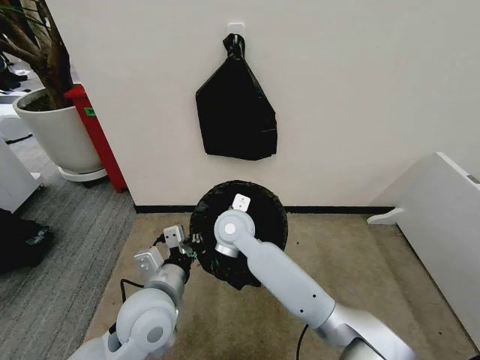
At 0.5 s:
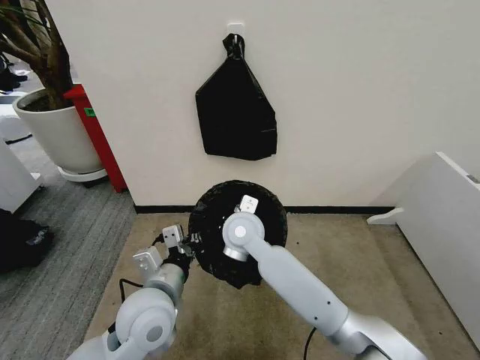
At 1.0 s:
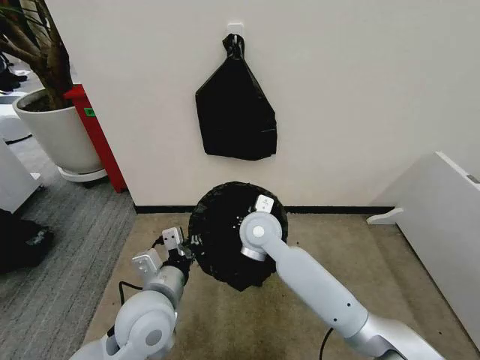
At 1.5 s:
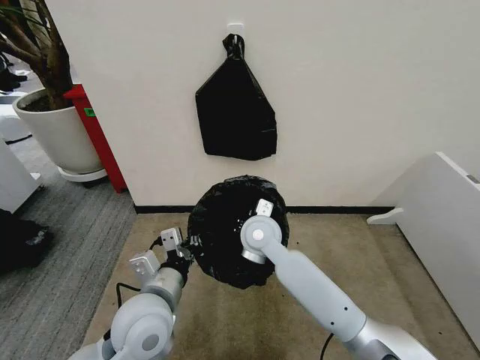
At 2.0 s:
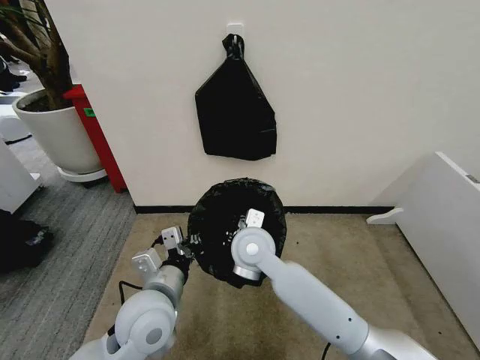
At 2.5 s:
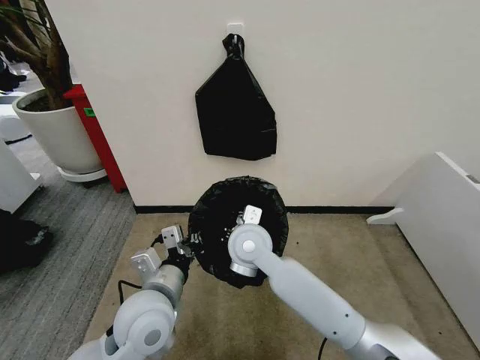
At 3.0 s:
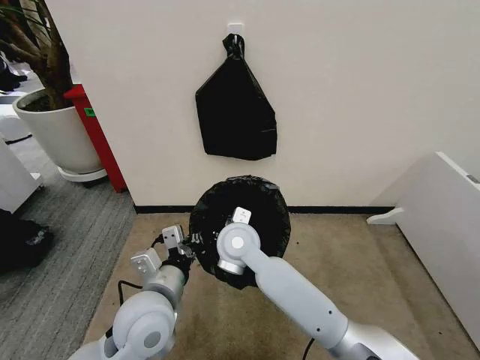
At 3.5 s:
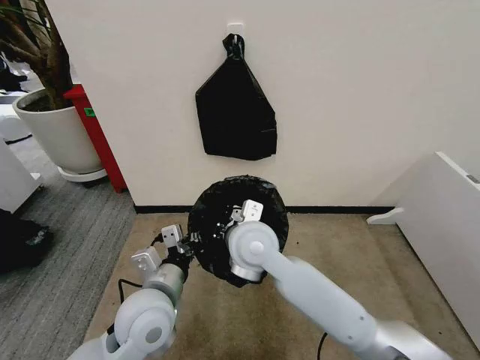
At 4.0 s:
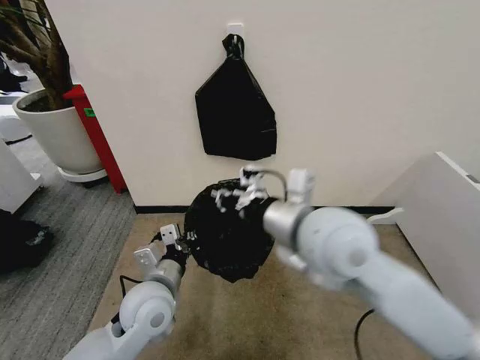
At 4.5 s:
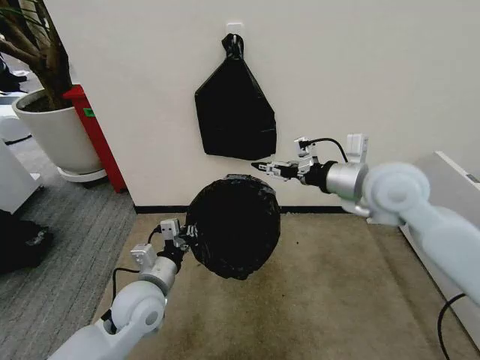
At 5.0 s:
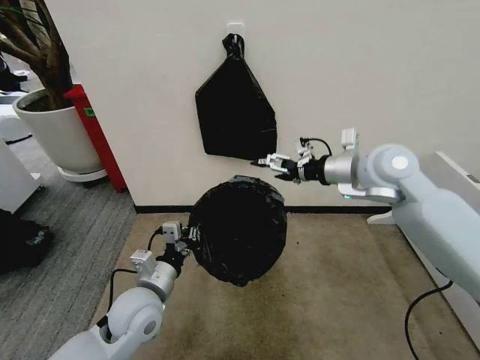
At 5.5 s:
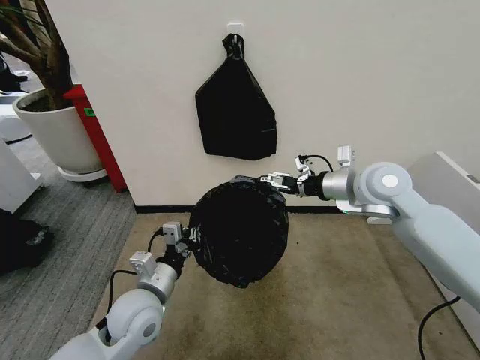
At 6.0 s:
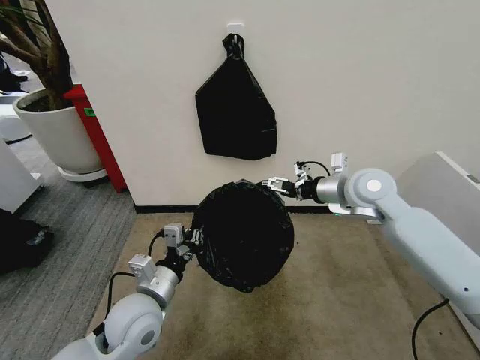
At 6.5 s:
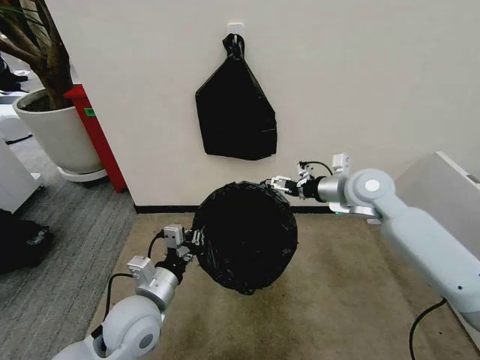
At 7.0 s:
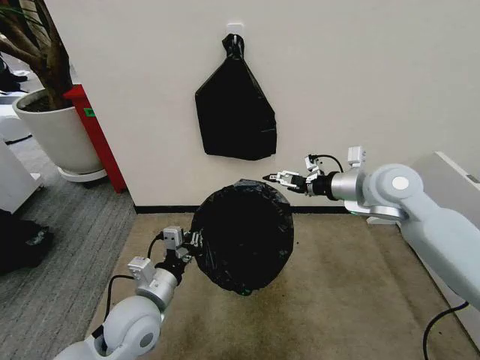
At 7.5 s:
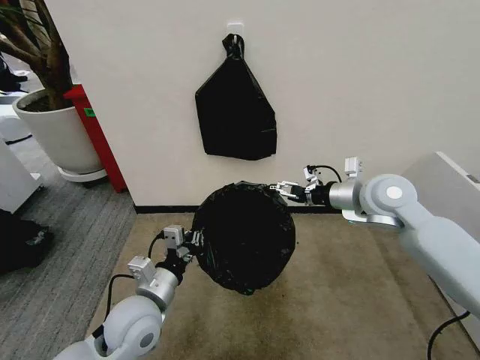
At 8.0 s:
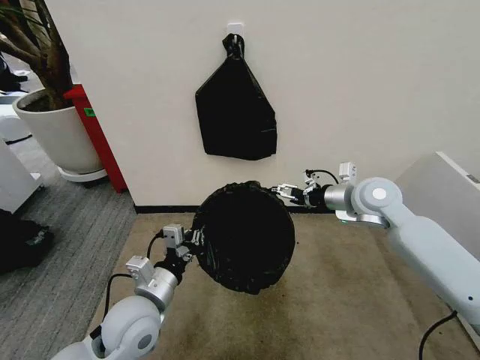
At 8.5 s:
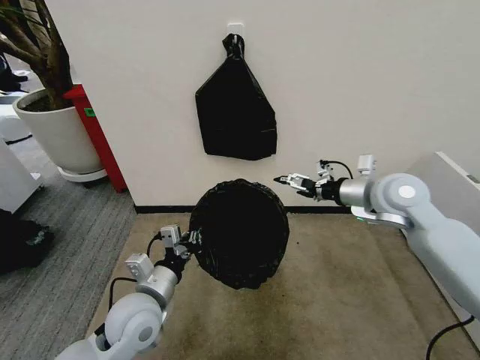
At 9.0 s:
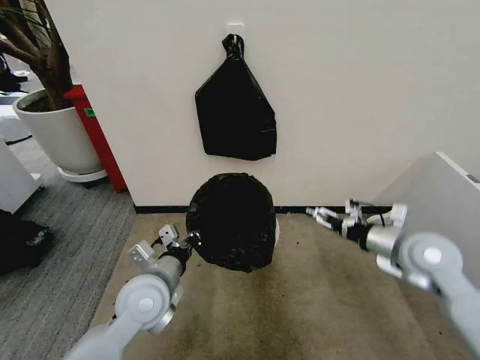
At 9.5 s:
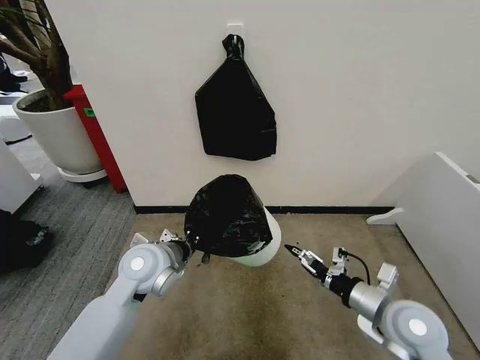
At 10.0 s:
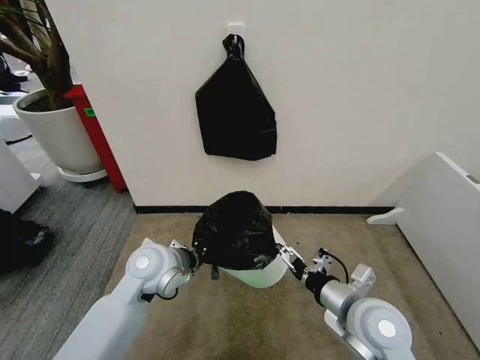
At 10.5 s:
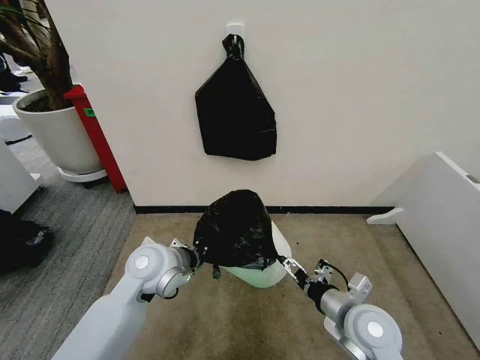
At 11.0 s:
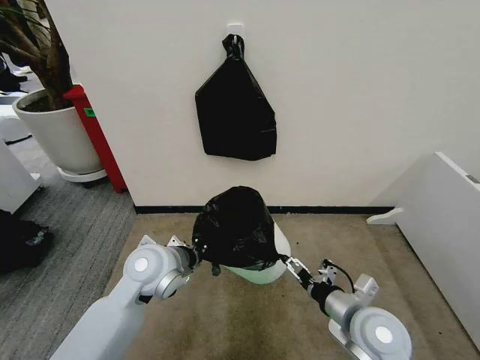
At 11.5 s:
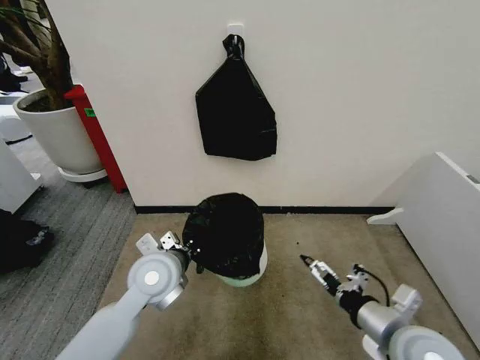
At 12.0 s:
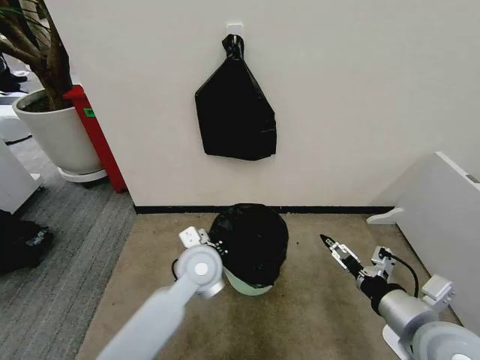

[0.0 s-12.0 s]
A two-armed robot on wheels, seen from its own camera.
Task of the whole recording: Place the garbage bag over the trash bin.
0.0 to 2.0 s: The right gripper is displaced backward by approximately 5 cm.
2.0 to 4.0 s: The right gripper moves upward, to the right and backward, about 20 cm.
4.0 to 6.0 s: The right gripper travels forward and to the right by about 20 cm, and opens up.
6.0 to 8.0 s: The grippers move only a little.
8.0 to 10.0 s: The right gripper heads backward and downward, covering some 25 cm; the left gripper travels forward by approximately 10 cm.
10.0 to 12.0 s: The left gripper is displaced to the right by some 10 cm. The right gripper moves to the right and backward, approximately 10 cm.

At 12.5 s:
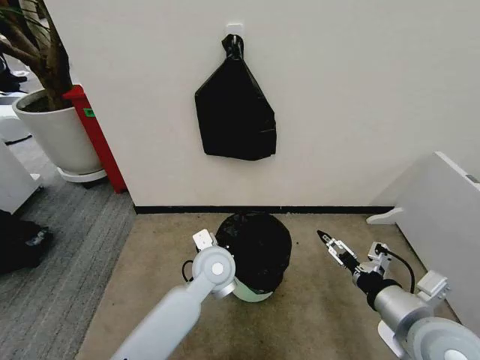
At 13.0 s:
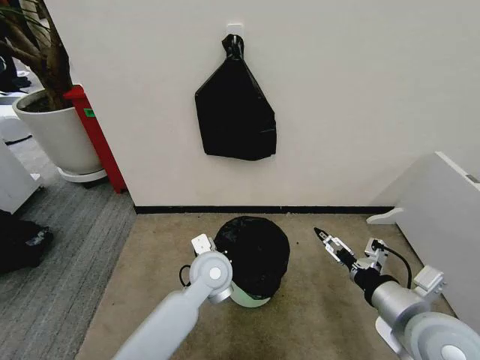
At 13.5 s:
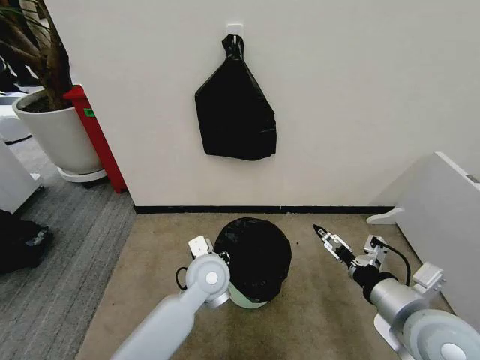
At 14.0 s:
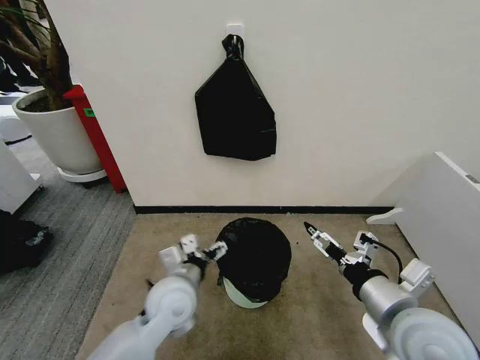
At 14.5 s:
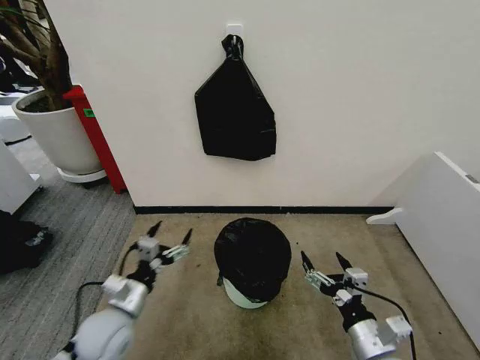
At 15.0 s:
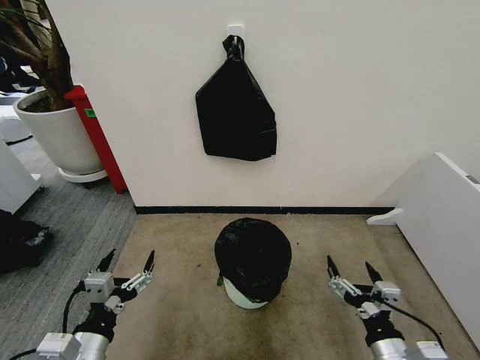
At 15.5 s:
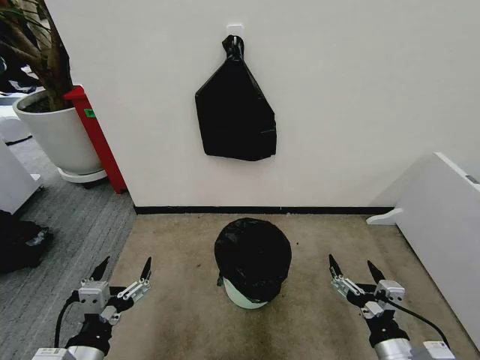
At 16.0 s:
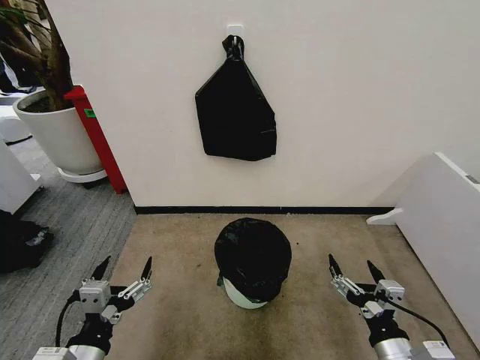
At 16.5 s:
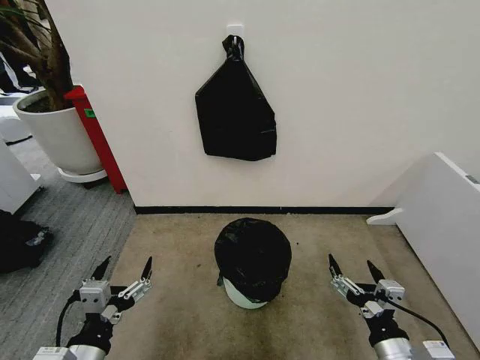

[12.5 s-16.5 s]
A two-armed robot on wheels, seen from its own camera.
Task of the whole recording: Place the garbage bag over the trash bin.
12.5 to 14.5 s: The left gripper moves to the left and backward, about 25 cm, and opens its fingers, while the right gripper is displaced downward by about 10 cm.
14.5 to 16.5 s: The left gripper travels backward and upward by approximately 15 cm.

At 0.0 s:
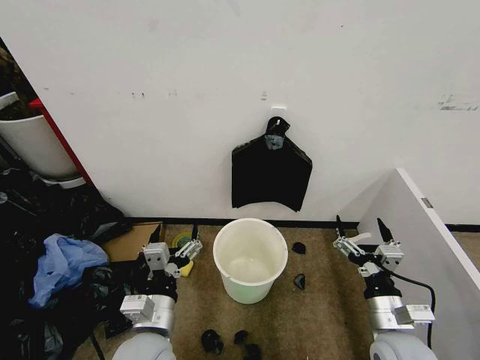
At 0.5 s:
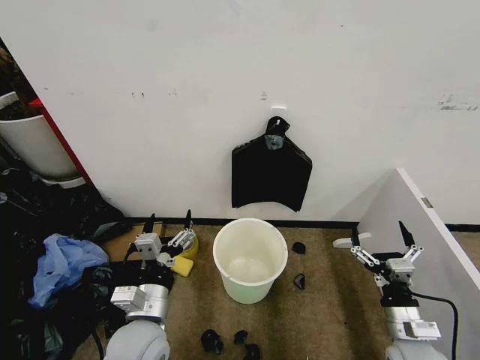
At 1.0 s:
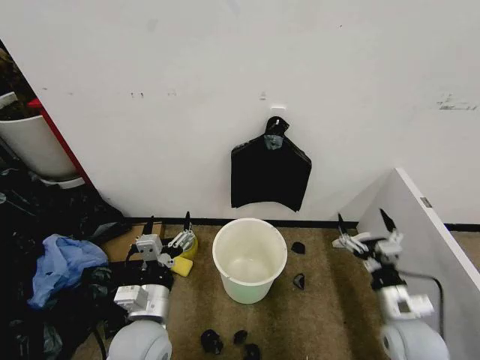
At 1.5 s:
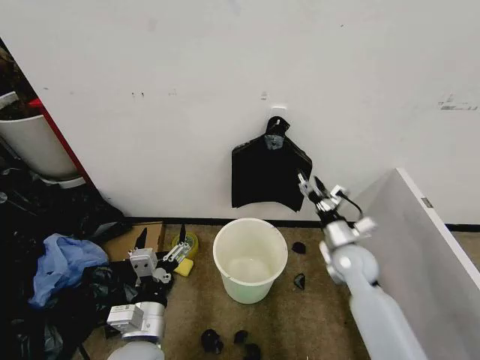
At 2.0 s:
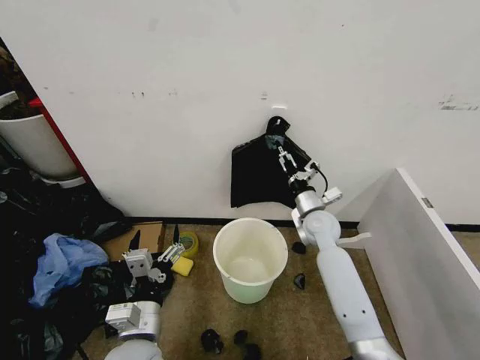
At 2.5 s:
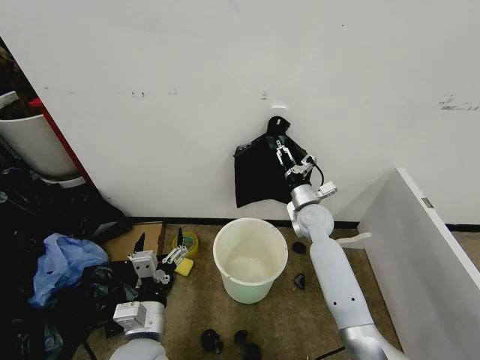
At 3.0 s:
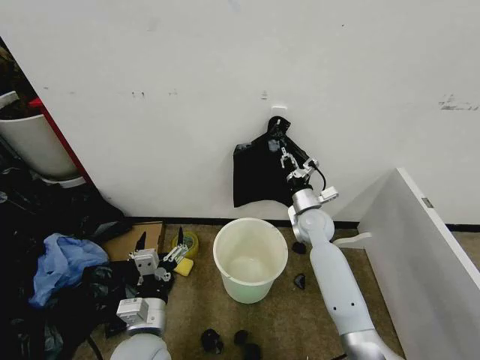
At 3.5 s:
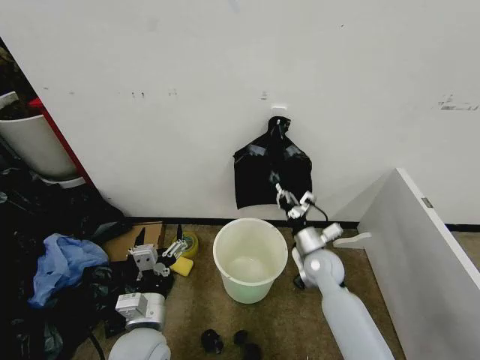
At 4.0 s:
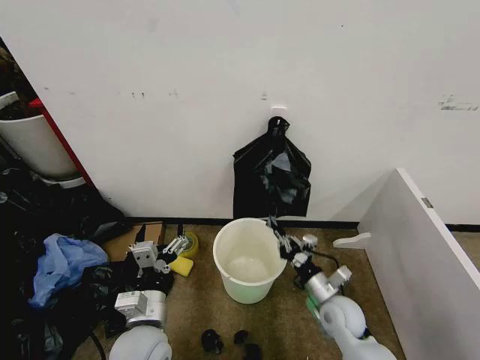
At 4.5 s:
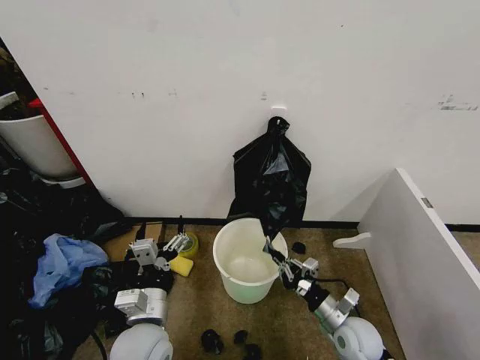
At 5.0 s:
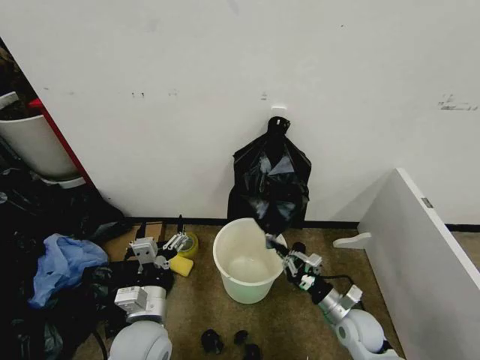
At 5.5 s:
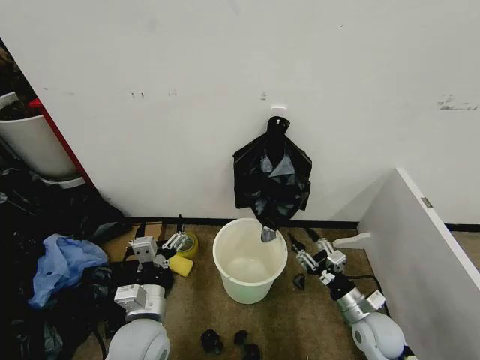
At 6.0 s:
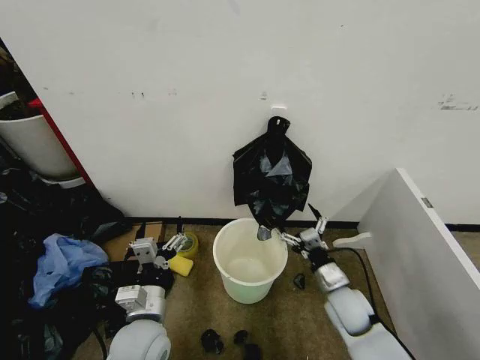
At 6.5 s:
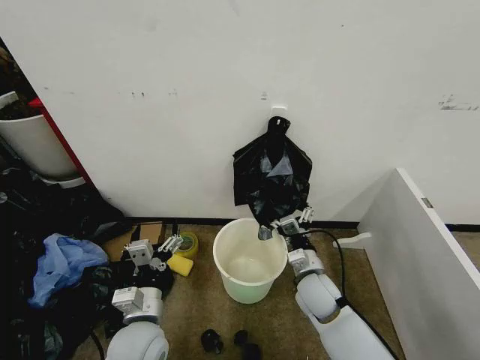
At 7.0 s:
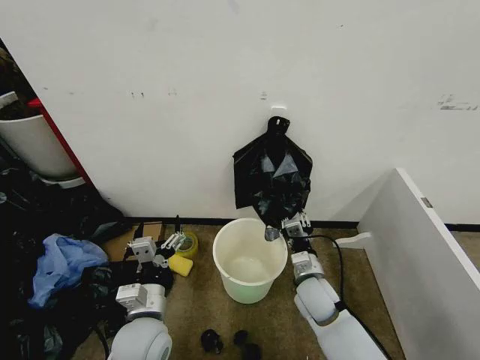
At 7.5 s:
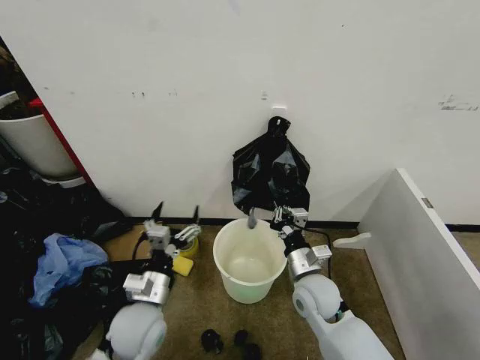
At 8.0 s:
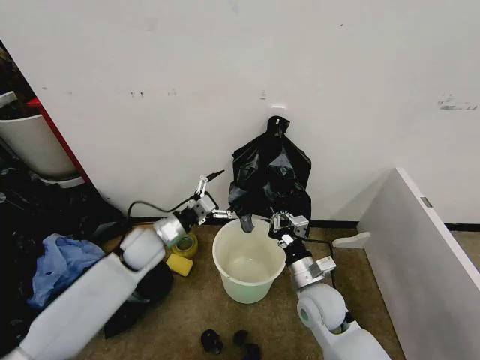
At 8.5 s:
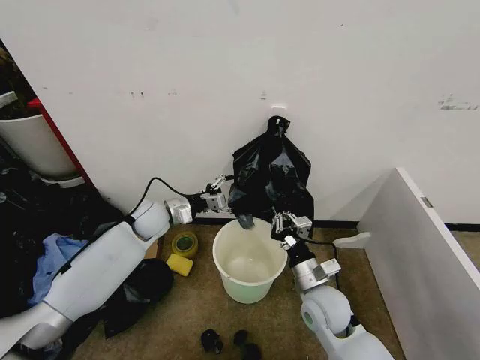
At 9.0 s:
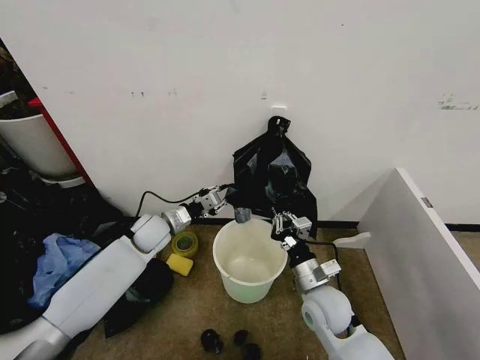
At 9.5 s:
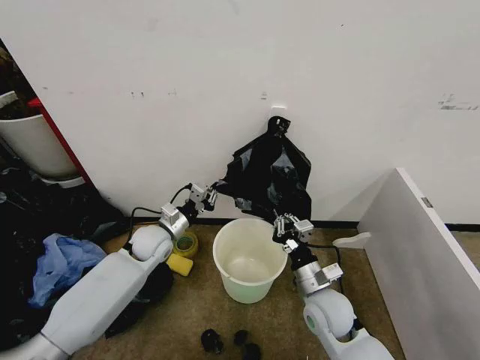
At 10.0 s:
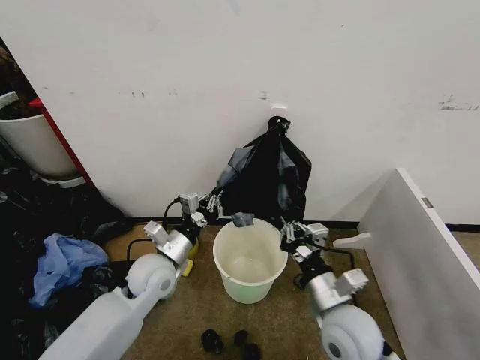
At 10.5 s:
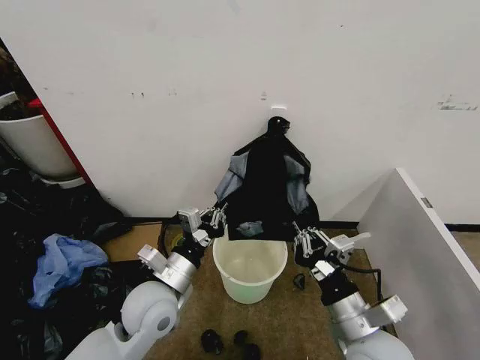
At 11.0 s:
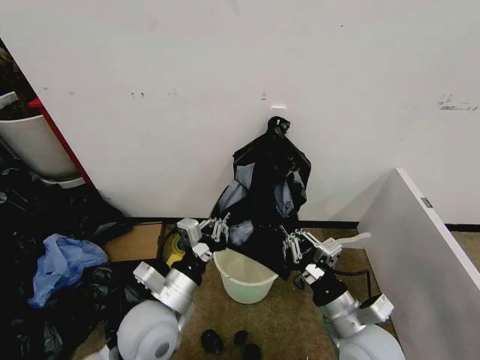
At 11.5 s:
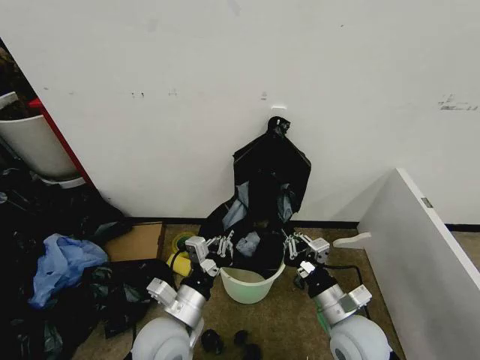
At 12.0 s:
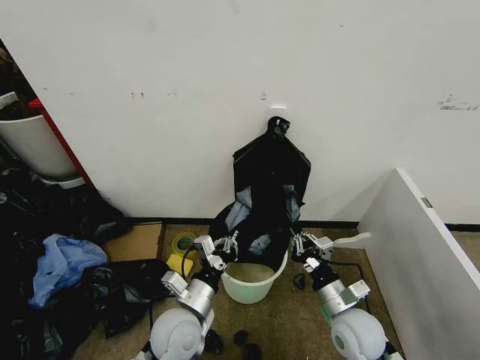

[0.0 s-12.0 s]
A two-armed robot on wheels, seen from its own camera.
Task of the whole recording: Place the garbage bag over the trash bin.
2.0 to 4.0 s: The right gripper goes some 20 cm backward and downward, and closes its fingers.
4.0 to 6.0 s: The right gripper opens.
6.0 to 8.0 s: The left gripper moves forward, about 20 cm; the right gripper shifts about 10 cm to the left, and closes.
8.0 to 10.0 s: The right gripper is displaced backward and upward by some 10 cm. The left gripper heads backward, covering about 5 cm, and closes up.
10.0 to 12.0 s: The left gripper travels backward and to the right by approximately 10 cm. Meanwhile the right gripper is displaced downward by roughly 10 cm.
